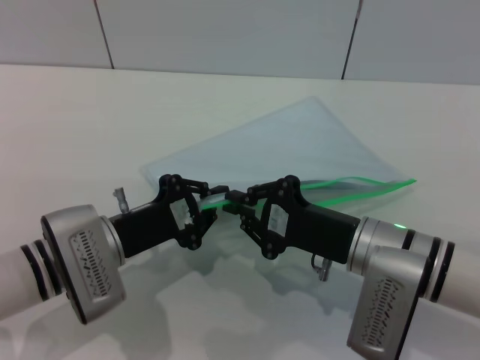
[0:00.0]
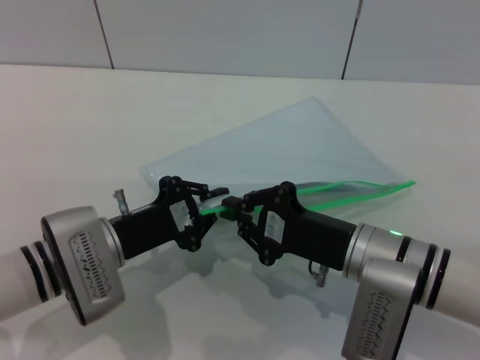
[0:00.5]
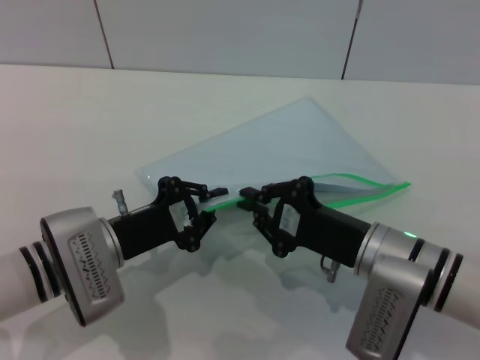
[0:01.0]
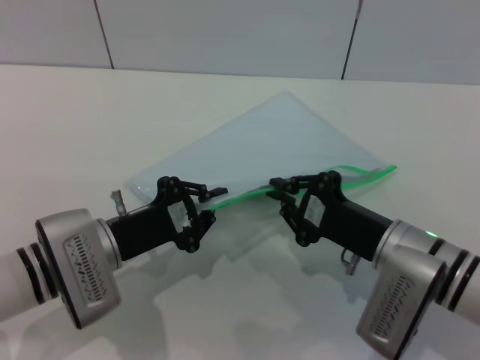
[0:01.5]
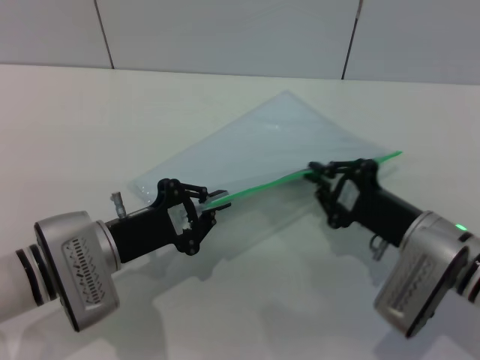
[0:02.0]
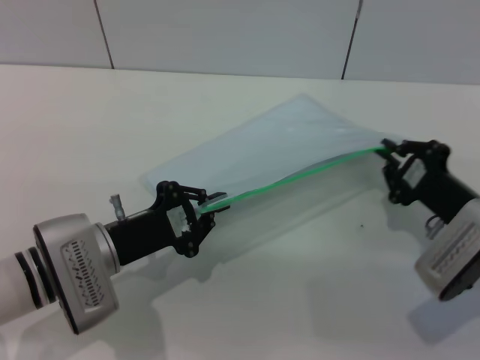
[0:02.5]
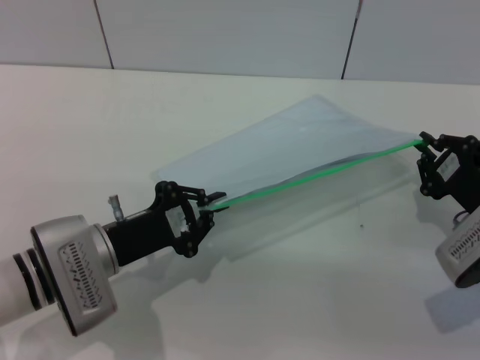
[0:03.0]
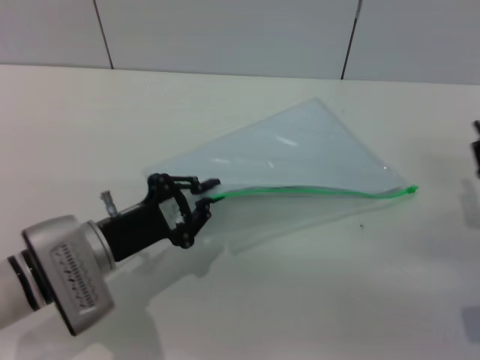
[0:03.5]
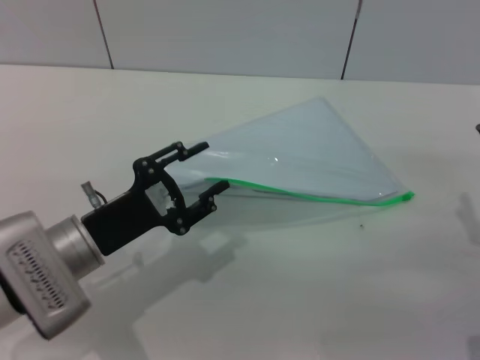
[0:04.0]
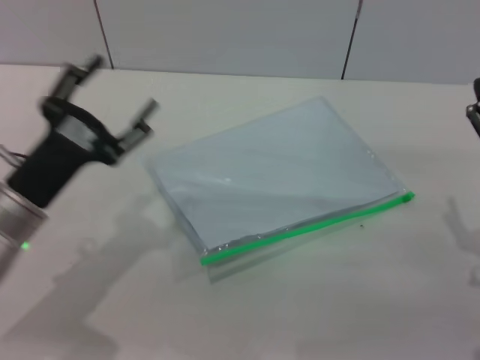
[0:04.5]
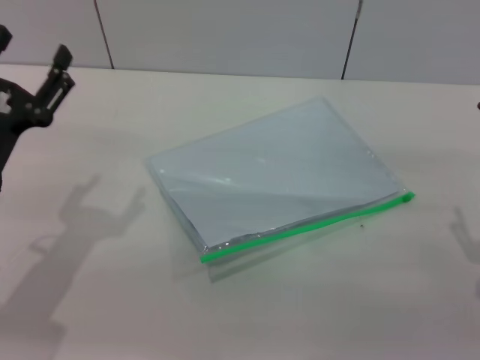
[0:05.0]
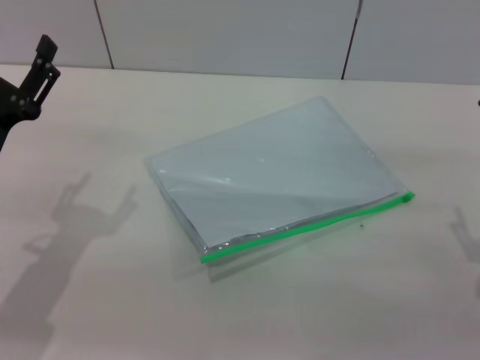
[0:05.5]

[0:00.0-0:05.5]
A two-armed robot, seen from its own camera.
Step, 0:00.0 to 0:03.5: Pulling up the zipper on the transparent plastic bag with the right gripper to close it.
0:00.0 to 0:02.0: The right gripper moves to the right, roughly 5 cm.
0:02.0 to 0:03.5: The right gripper moves to the right, some 10 cm.
0:03.5 to 0:05.5: The left gripper moves to the left, about 5 cm, and opens up, while the right gripper shifts by some 5 cm, and opens up.
